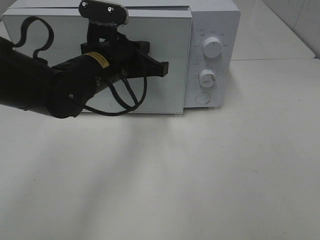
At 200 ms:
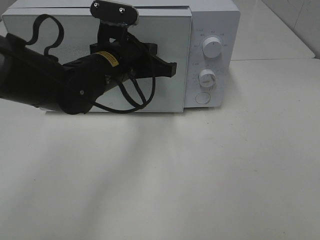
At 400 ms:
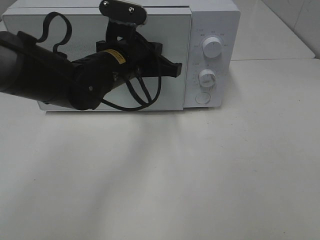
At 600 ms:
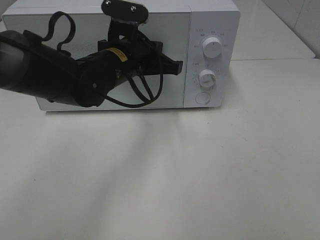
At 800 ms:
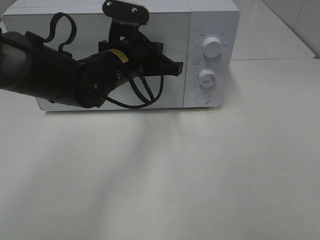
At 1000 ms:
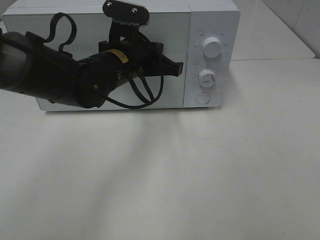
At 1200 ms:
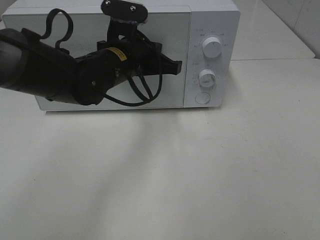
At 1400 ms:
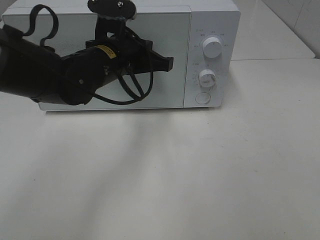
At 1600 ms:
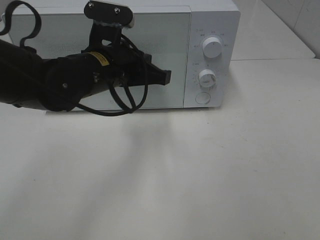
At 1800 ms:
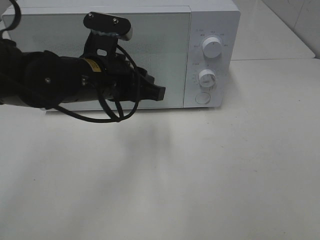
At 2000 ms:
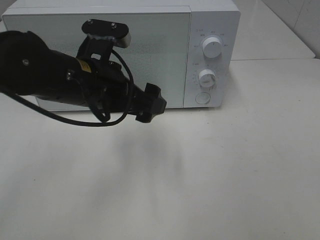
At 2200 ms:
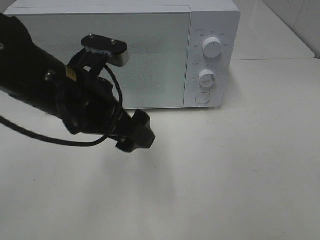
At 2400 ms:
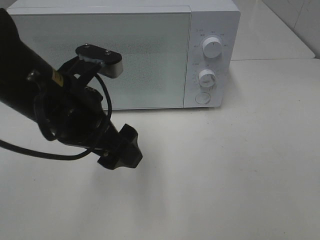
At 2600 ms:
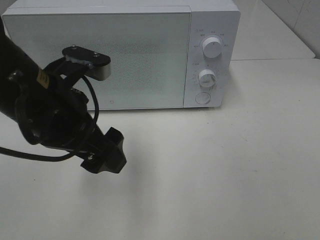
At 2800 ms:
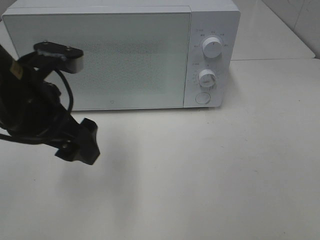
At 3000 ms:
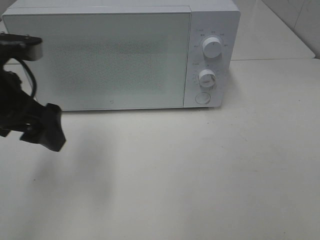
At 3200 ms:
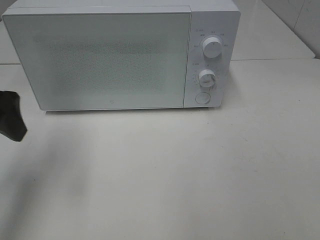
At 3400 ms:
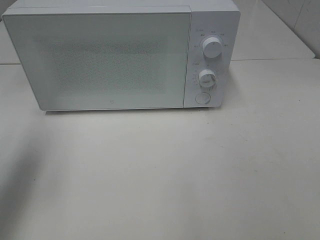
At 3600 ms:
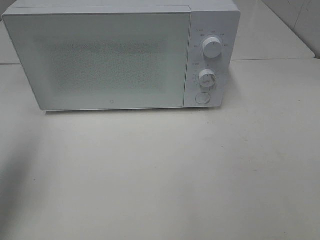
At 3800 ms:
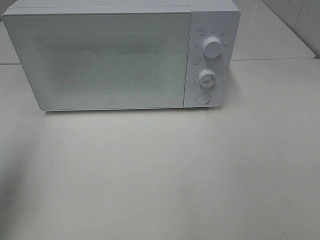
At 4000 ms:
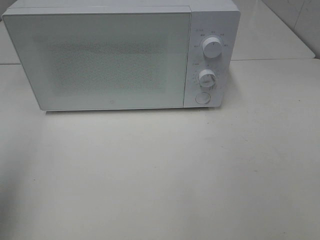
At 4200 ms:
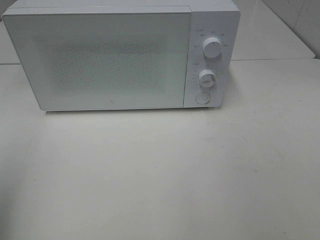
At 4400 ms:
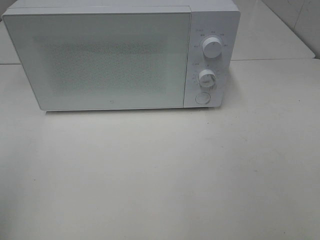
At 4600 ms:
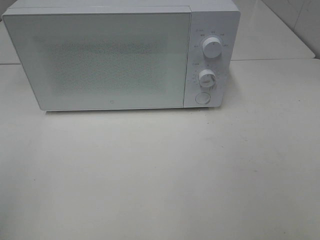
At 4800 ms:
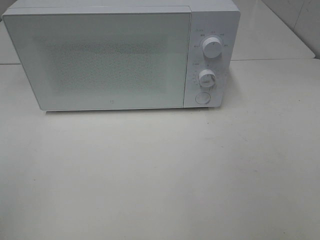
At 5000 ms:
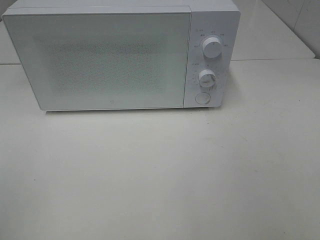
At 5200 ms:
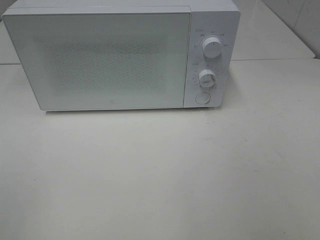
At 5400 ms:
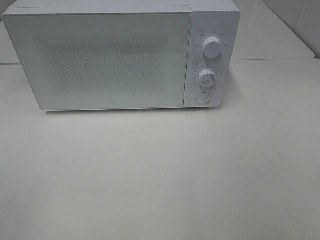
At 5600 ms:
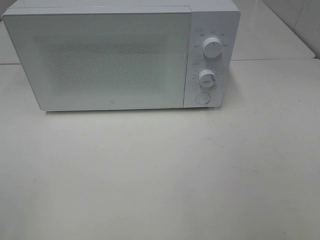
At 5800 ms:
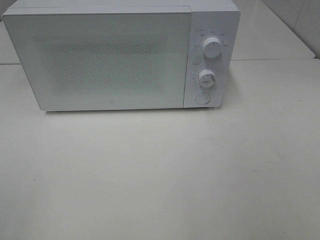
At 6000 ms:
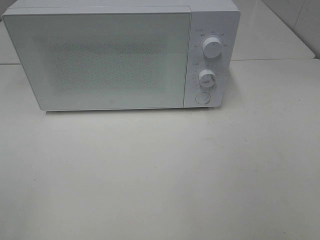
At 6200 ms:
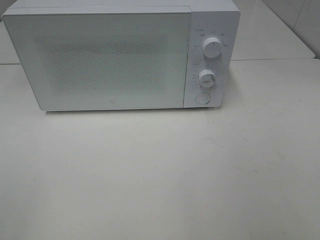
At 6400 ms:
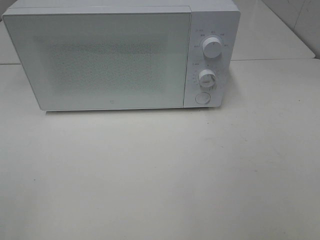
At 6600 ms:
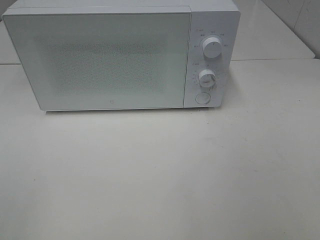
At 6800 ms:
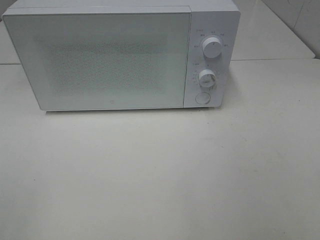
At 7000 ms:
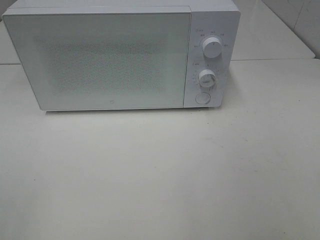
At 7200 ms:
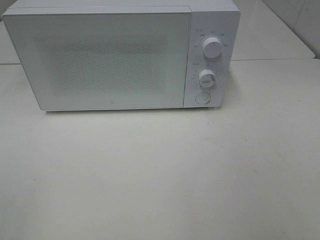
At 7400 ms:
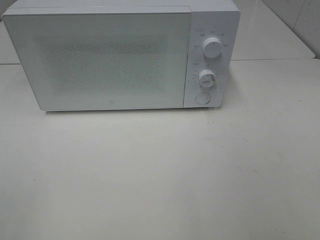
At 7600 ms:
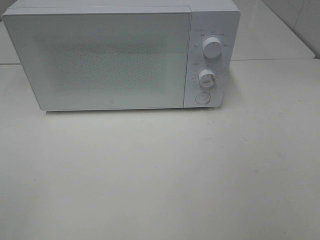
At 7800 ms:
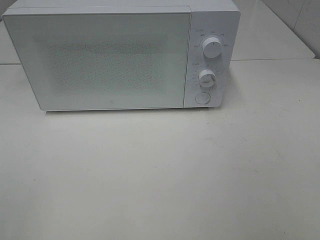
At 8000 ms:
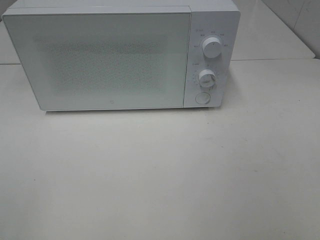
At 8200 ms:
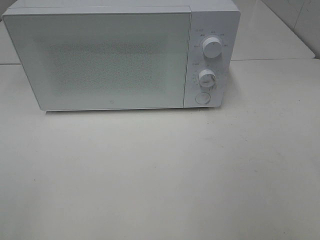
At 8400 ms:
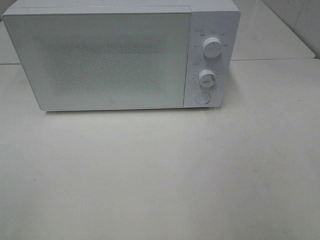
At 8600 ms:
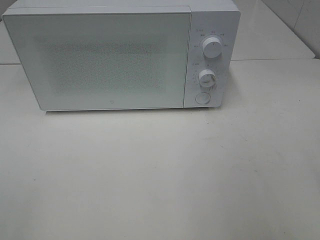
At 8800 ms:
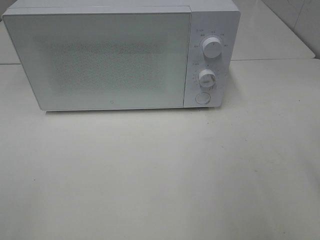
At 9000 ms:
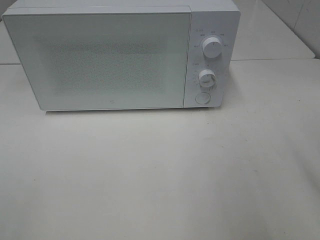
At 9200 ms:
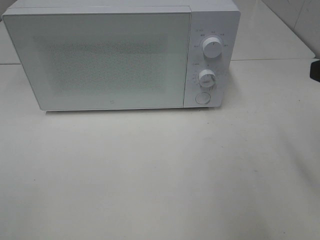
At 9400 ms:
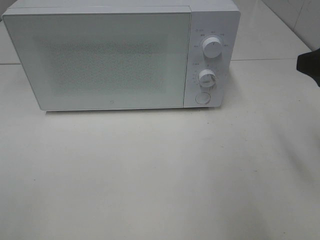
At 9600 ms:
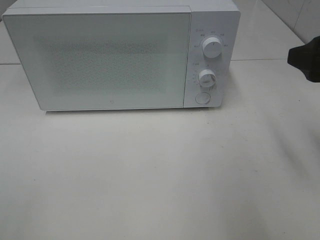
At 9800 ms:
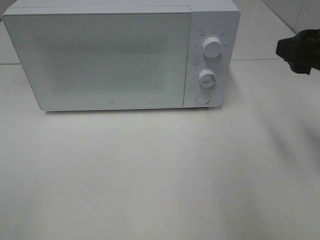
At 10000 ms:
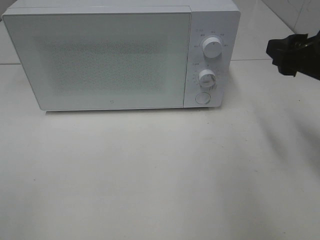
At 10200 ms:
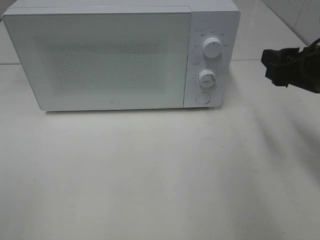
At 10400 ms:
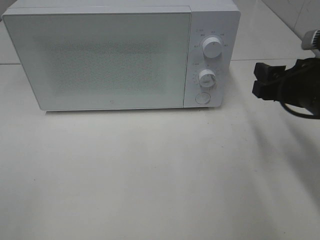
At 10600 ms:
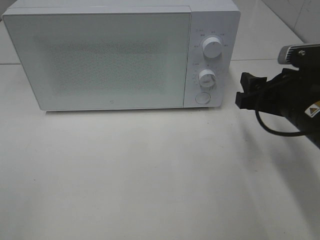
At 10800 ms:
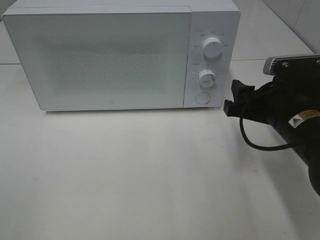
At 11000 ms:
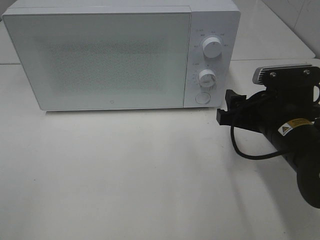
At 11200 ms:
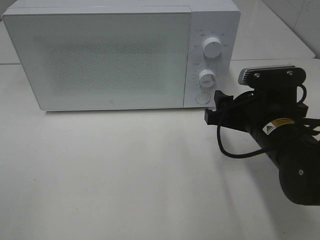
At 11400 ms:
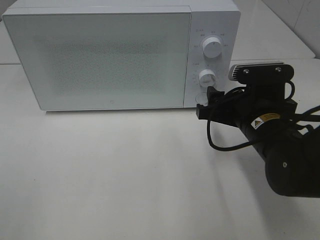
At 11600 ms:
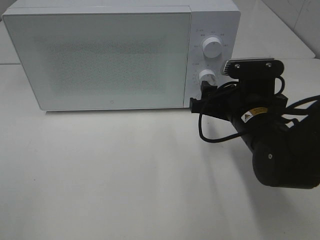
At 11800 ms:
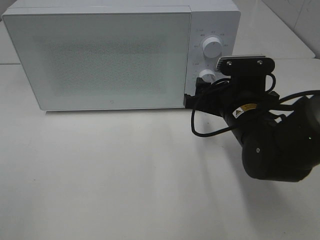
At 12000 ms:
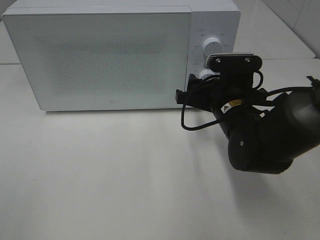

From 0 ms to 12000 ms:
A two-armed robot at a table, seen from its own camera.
Task of the whole recording: Heat Sandwich.
From 0 ms to 1600 ms: There are only small adjustments of the grippers.
From 1600 ms to 3000 ms: The left gripper travels to the left, backward and upward by approximately 15 cm, and opens up.
From 3000 ms to 4400 ms: The left gripper heads backward and to the left, covering roughly 20 cm.
From 6000 ms to 7600 ms: Both grippers stay about where they are.
From 9000 ms to 10400 ms: The right gripper heads downward and forward, covering about 15 cm.
From 10400 ms to 12000 ms: The right gripper is displaced to the left, downward and forward by approximately 15 cm.

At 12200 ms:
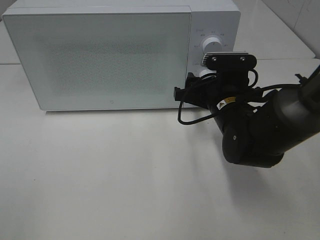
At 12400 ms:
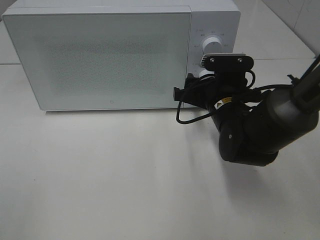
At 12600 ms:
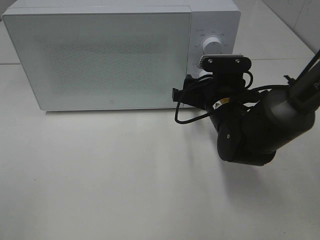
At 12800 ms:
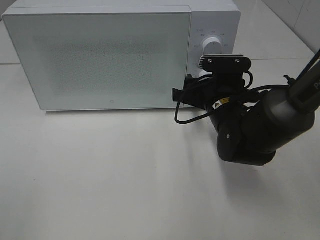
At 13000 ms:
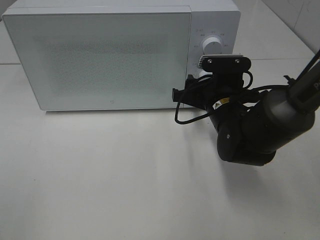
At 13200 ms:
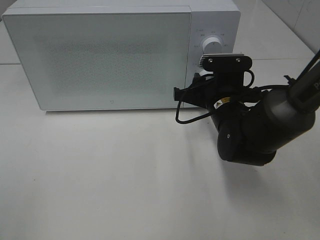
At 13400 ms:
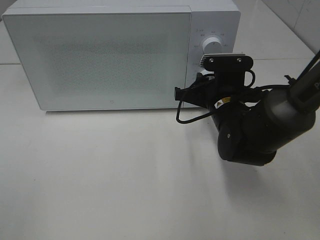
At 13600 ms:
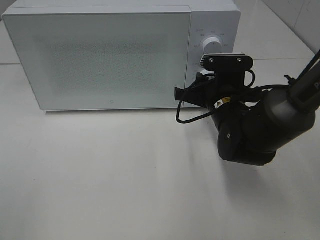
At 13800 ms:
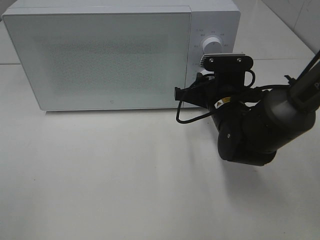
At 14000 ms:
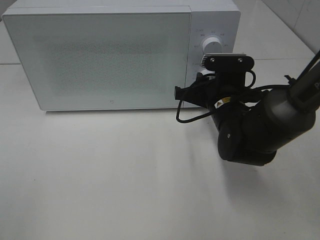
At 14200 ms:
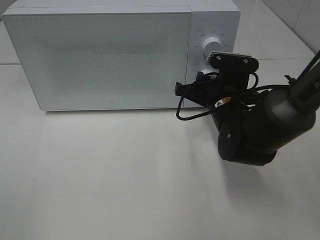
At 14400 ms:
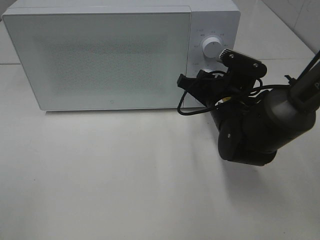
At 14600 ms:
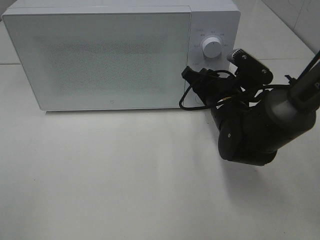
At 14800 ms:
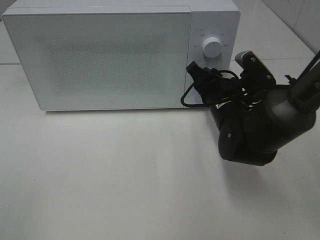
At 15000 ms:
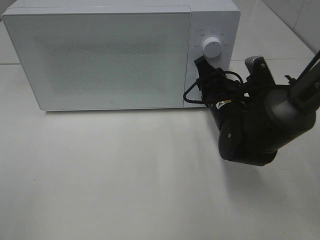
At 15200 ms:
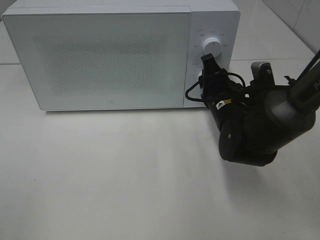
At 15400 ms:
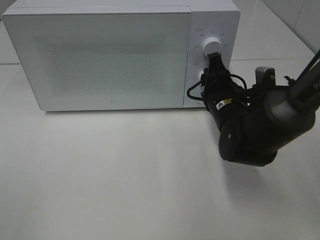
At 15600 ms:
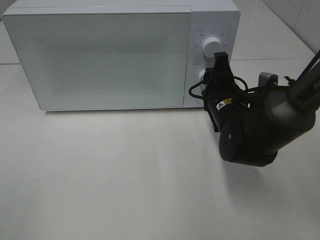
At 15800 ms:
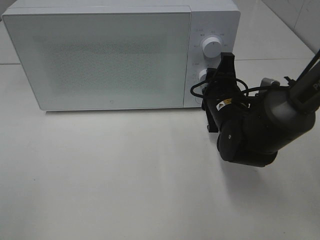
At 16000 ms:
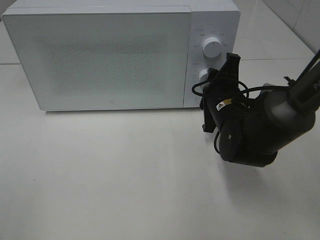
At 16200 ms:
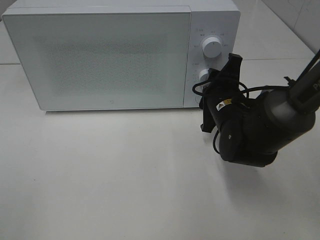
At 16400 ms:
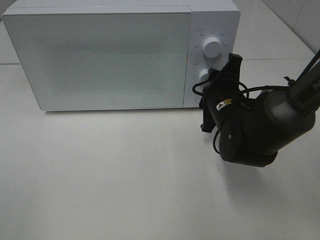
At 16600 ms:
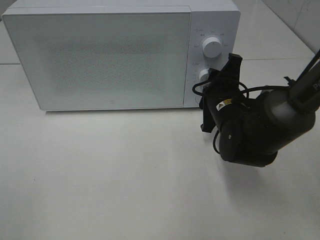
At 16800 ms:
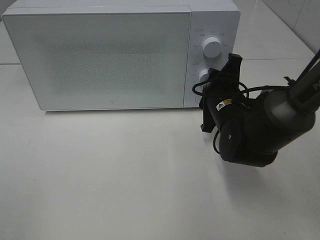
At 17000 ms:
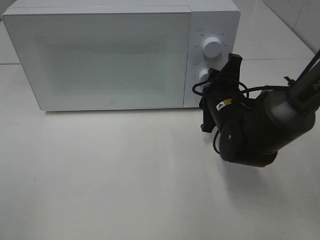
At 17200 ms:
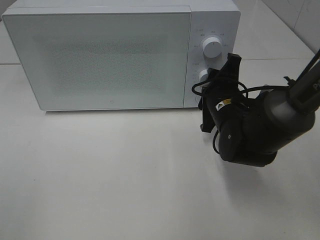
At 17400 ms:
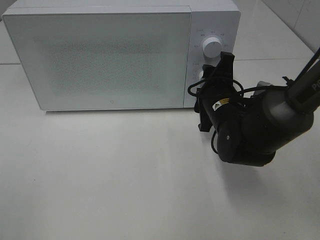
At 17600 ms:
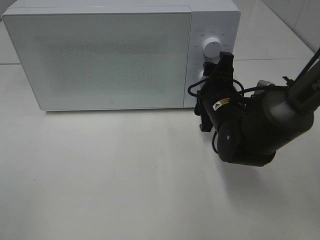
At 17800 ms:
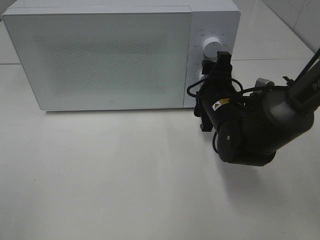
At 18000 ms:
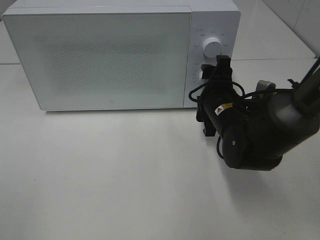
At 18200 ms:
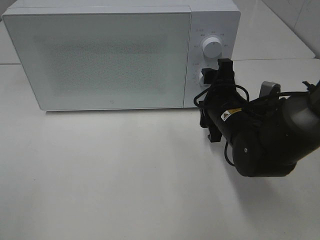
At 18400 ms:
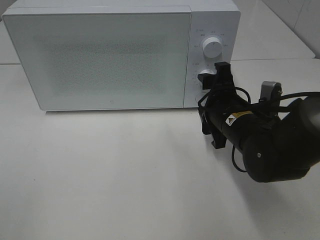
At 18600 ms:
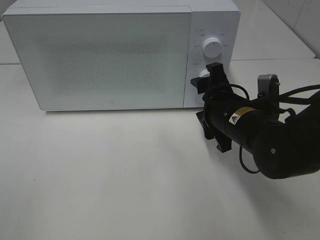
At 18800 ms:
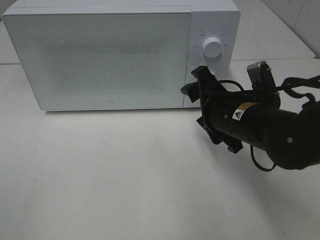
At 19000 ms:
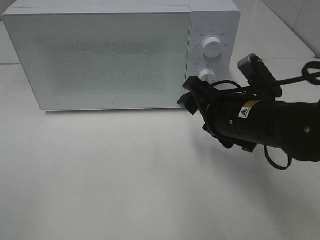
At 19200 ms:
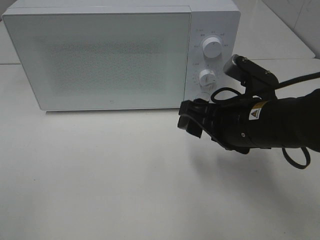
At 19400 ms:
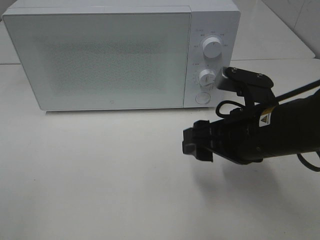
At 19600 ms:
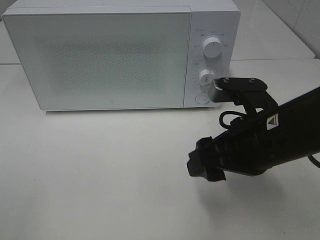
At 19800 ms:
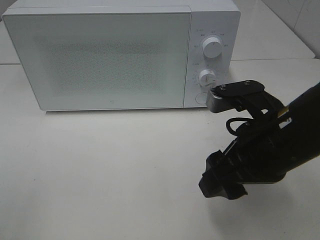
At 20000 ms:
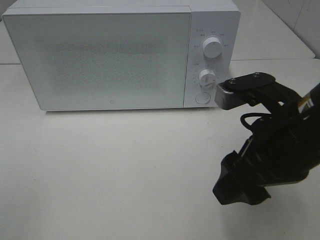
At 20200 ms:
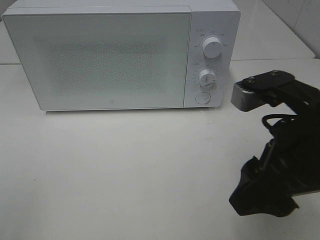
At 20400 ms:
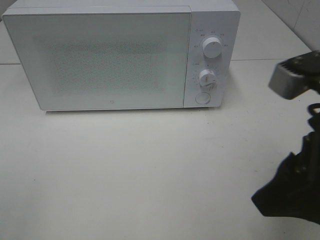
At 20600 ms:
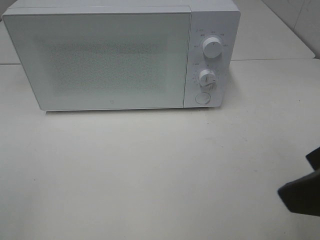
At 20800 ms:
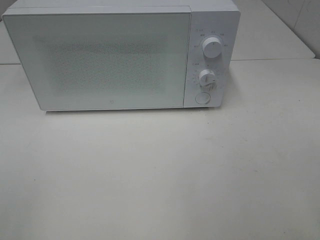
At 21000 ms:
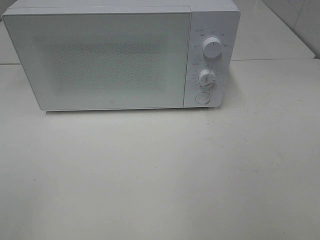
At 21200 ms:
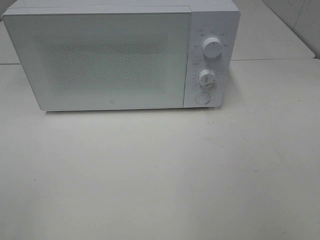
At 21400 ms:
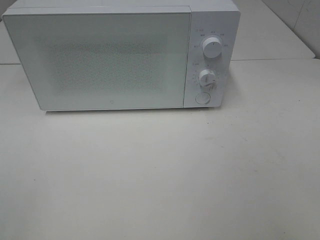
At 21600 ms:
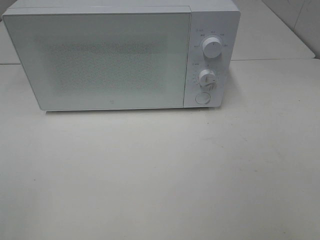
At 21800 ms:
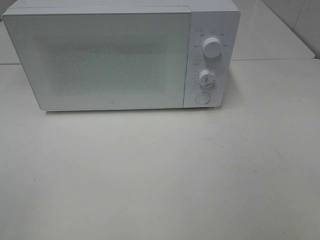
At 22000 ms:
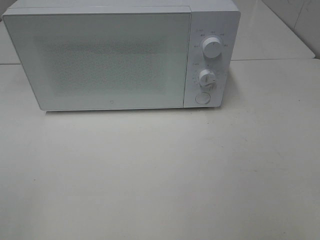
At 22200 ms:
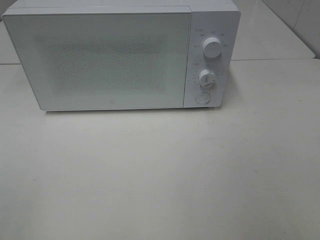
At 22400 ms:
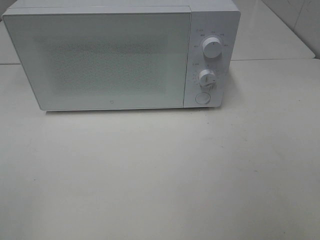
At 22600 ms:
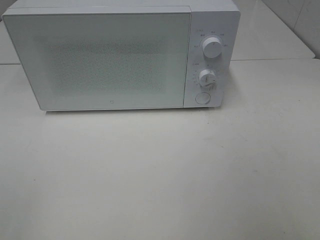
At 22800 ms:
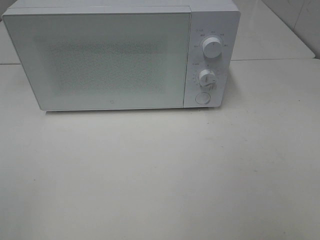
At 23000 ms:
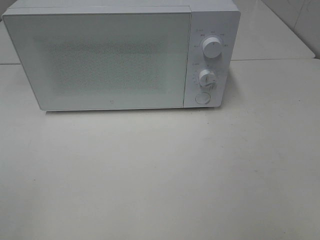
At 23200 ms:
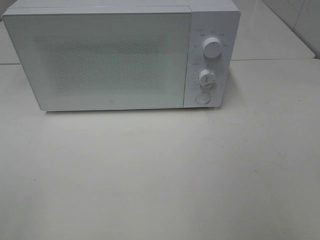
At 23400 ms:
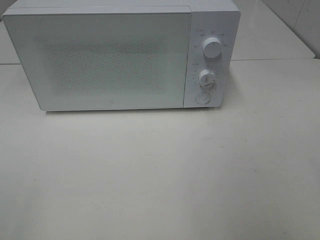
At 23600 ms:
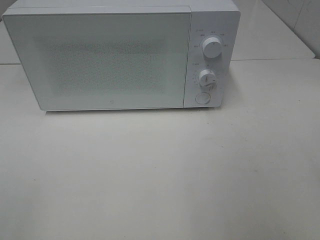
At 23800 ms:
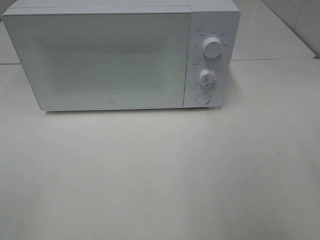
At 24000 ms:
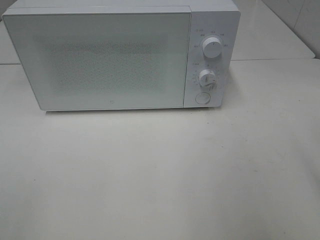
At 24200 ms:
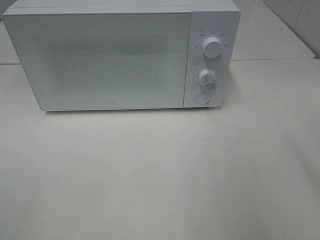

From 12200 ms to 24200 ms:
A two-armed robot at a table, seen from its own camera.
Task of the whole recording: Heat Sandwich.
Step, from 12200 ms to 18000 ms: Right hand: twist timer button.
From 12200 ms to 13800 ms: The right gripper closes up.
From 16600 ms to 18200 ms: The grippers make only small movements.
From 18200 ms to 19800 ms: The right gripper goes roughly 15 cm backward and upward.
From 19800 ms to 21200 ms: The right gripper moves backward, to the right and upward, about 25 cm.
